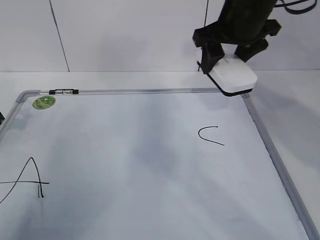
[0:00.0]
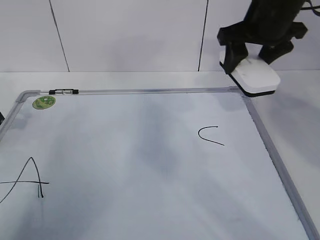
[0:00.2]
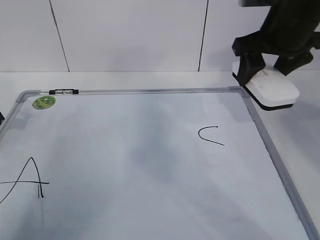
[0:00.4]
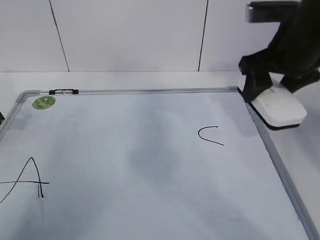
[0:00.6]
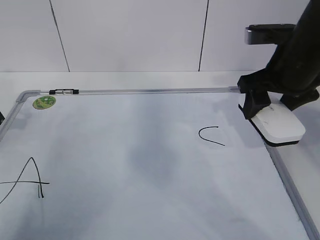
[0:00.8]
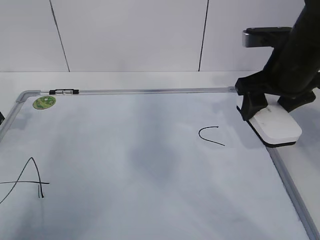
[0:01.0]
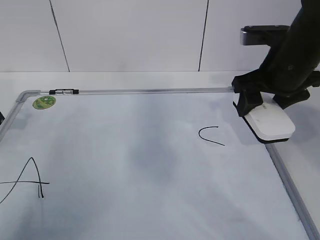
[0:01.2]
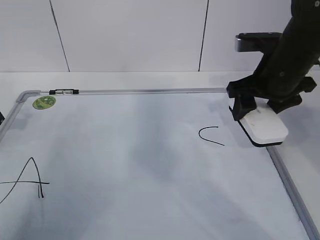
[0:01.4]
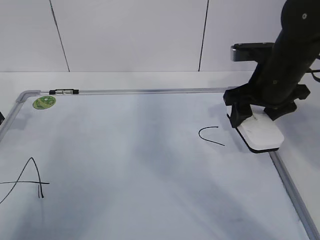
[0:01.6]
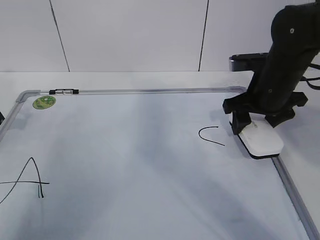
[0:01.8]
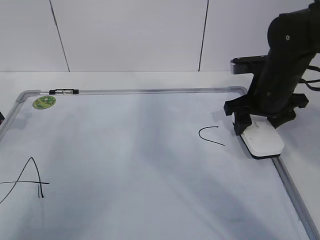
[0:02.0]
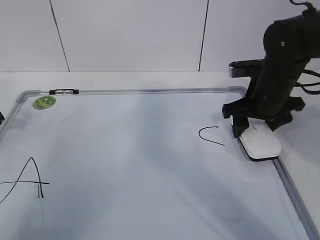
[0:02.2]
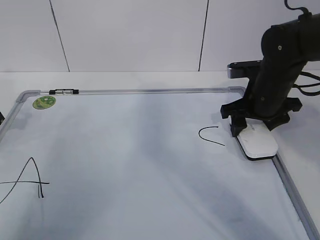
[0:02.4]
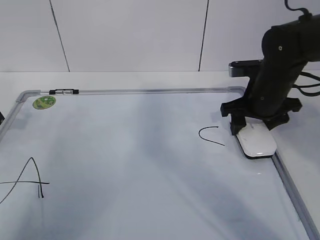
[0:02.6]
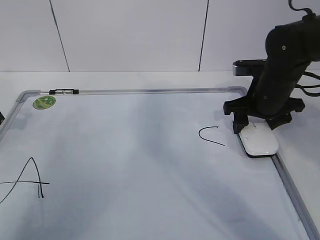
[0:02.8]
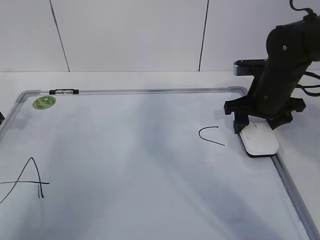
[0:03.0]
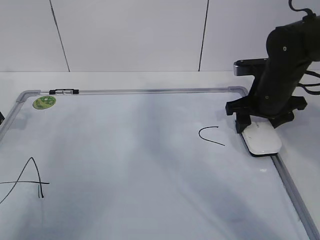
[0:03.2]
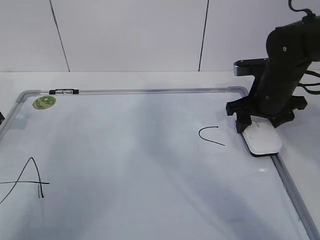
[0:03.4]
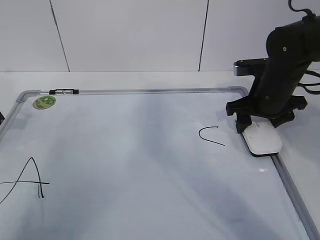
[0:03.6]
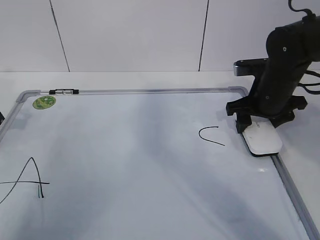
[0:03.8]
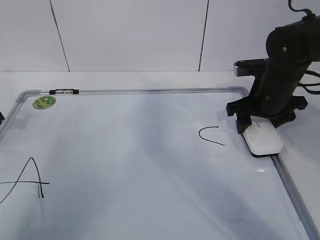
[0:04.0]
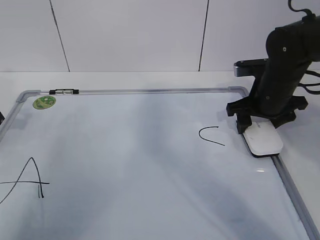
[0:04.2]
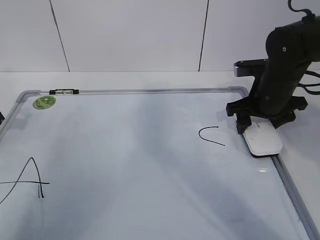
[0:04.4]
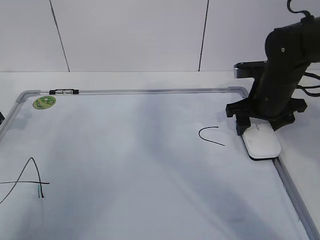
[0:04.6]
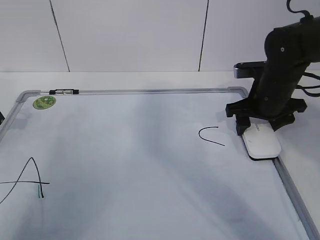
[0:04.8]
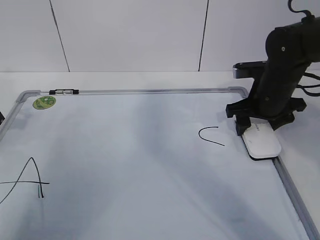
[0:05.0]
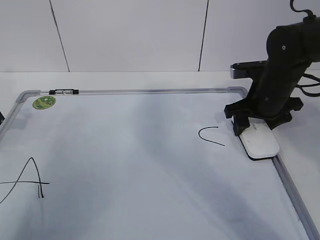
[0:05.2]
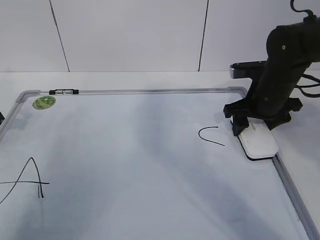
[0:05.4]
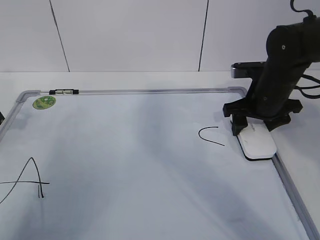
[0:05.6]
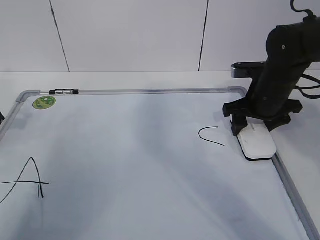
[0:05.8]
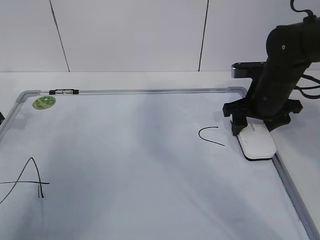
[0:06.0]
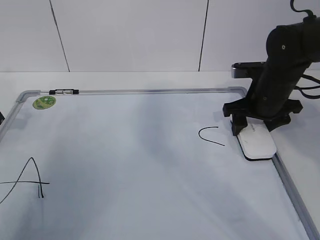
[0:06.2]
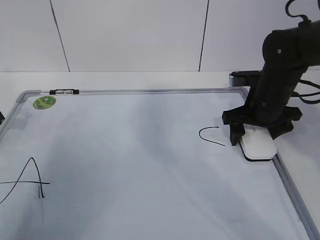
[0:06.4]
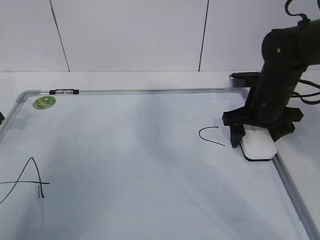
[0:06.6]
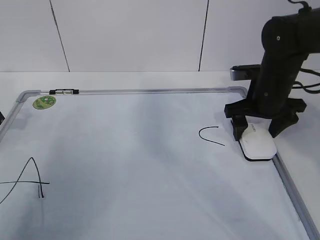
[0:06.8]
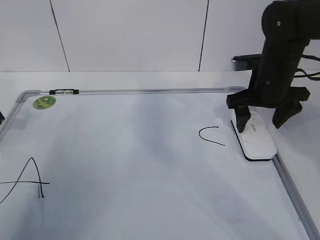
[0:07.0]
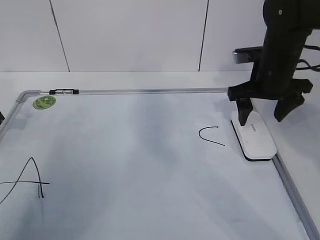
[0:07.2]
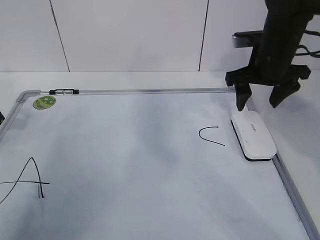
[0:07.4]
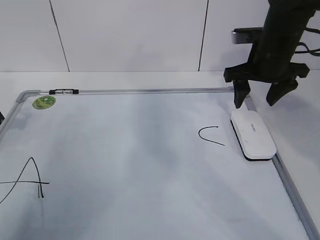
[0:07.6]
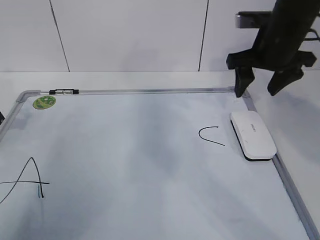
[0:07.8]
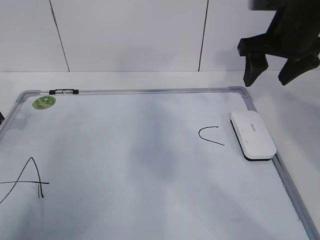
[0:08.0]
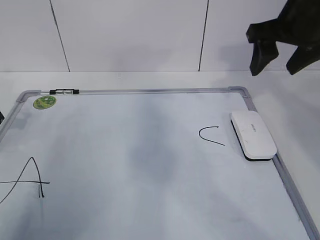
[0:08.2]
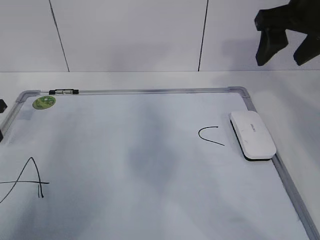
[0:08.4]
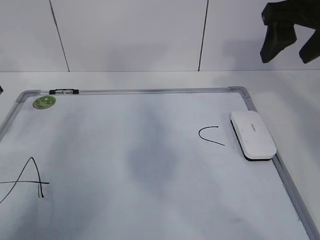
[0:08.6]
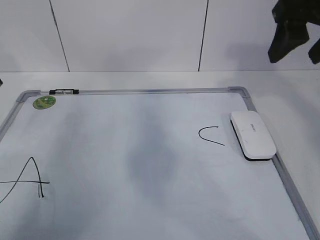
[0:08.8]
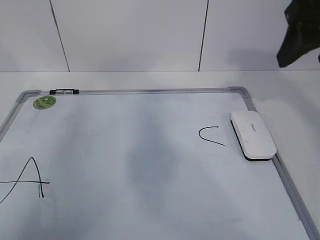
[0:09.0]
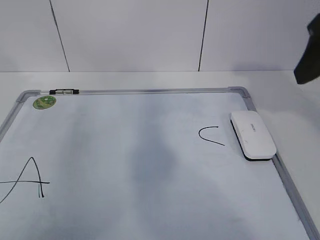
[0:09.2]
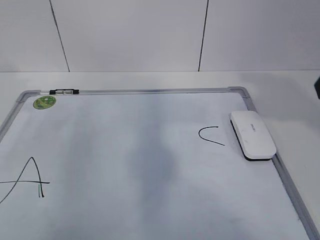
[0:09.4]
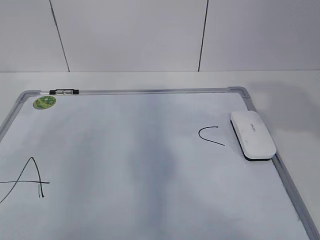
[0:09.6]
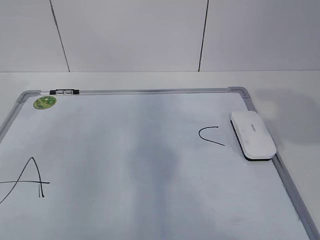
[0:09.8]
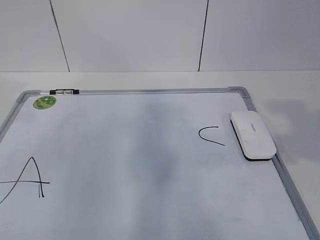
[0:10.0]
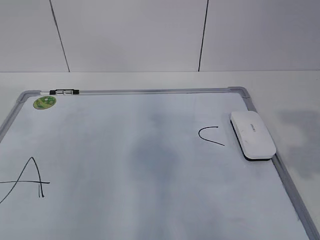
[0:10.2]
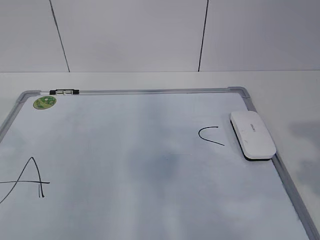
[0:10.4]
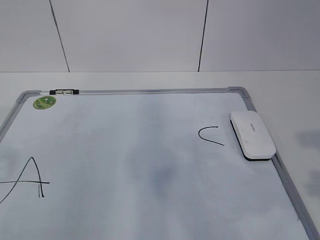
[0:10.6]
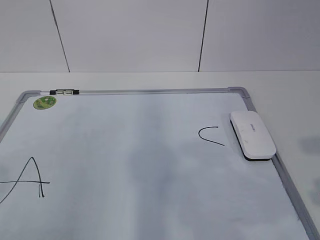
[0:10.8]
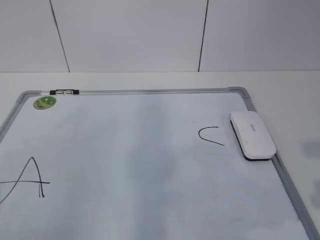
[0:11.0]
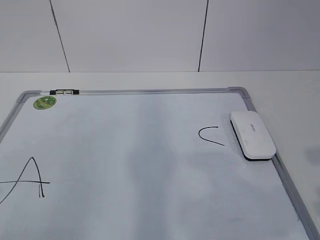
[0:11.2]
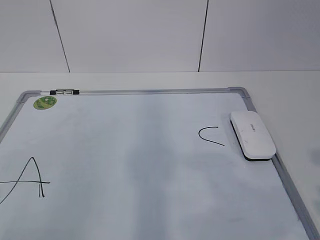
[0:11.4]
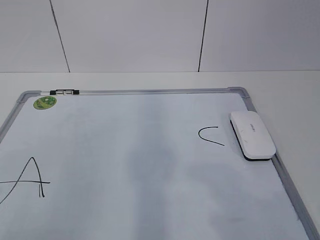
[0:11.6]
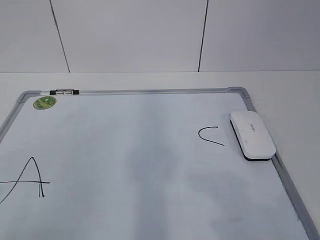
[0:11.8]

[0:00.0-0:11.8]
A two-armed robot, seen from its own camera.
Task of the whole recording: pick up the eraser on the blackboard and erase the letter "B".
0:00.0 to 0:01.4: The right gripper goes roughly 10 cm downward and to the right.
0:01.4 to 0:03.0: The right gripper travels downward by about 5 cm.
0:03.0 to 0:04.4: Both grippers stay about where they are.
0:04.4 to 0:06.0: The grippers move only a little.
0:06.0 to 0:07.4: The right gripper moves upward, about 5 cm, and opens its fingers.
0:07.4 to 0:08.8: The right gripper shifts roughly 15 cm upward and backward, while the left gripper is displaced upward by about 5 cm, and opens its fingers.
0:08.8 to 0:10.4: The right gripper moves backward, some 20 cm, while the left gripper shifts approximately 25 cm backward and upward.

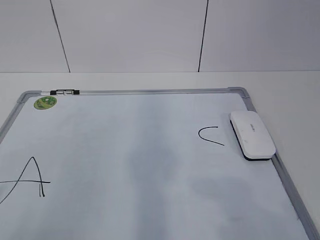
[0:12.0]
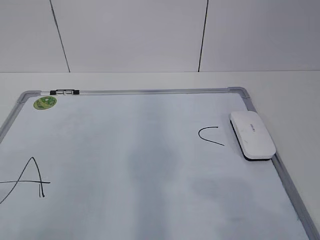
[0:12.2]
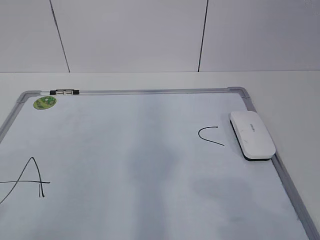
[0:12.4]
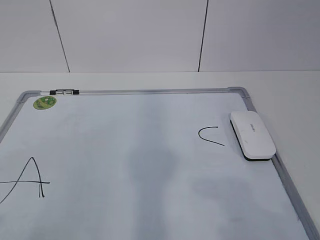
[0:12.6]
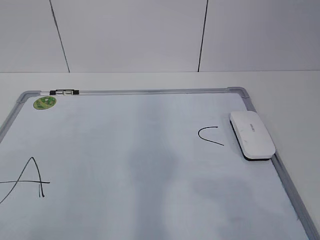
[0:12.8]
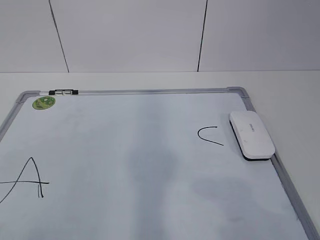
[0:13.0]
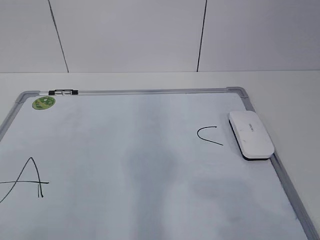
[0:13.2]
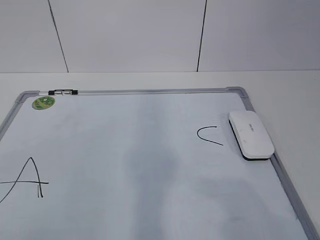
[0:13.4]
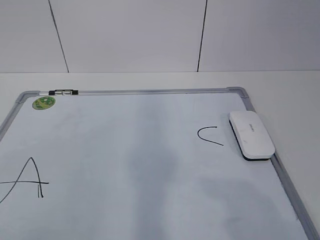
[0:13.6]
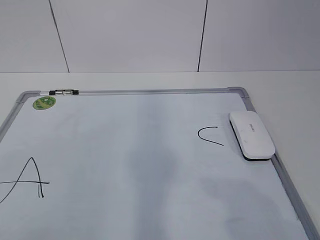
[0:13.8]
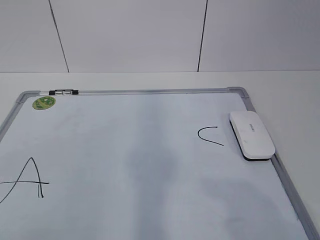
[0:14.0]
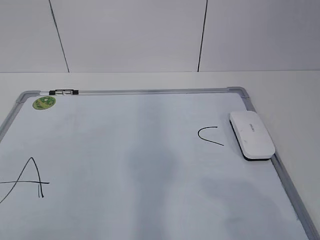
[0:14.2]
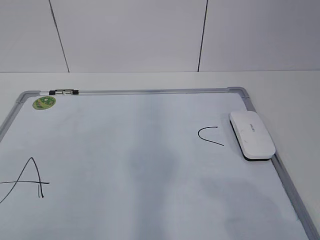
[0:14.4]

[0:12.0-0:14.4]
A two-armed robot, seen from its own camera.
Task of the whole recording: pick up the eraser on the blackboard and erase the letter "B".
0:12.0 to 0:13.2: There are only small adjustments of the grippers.

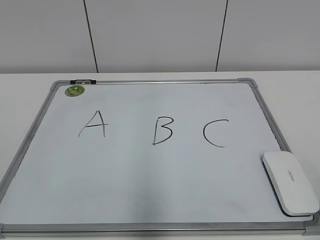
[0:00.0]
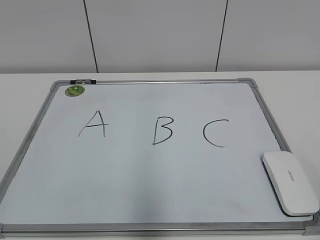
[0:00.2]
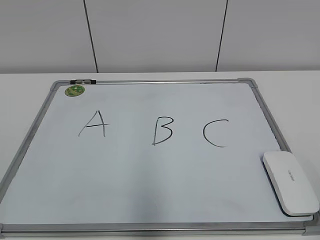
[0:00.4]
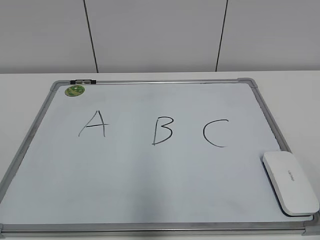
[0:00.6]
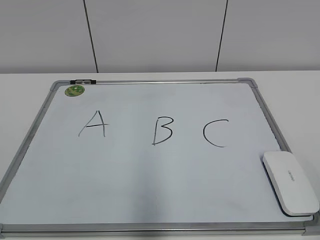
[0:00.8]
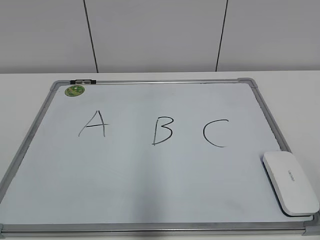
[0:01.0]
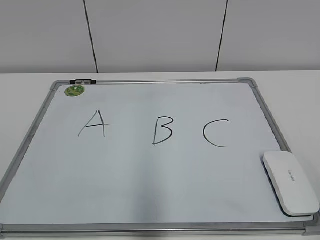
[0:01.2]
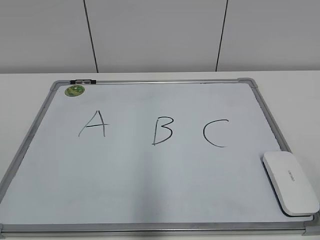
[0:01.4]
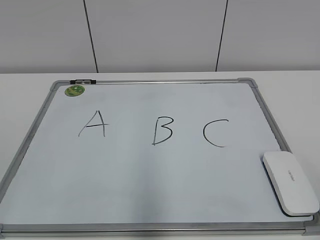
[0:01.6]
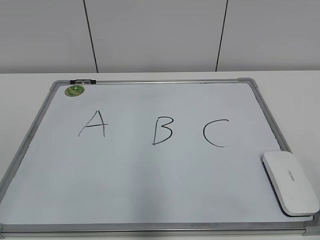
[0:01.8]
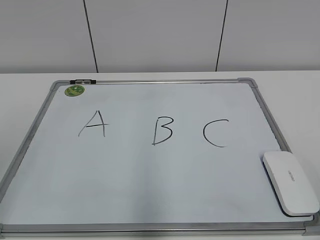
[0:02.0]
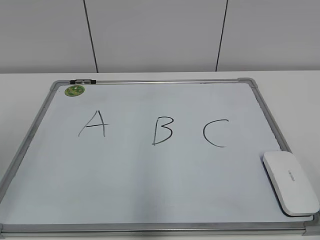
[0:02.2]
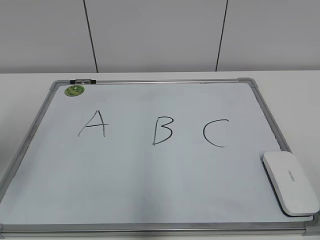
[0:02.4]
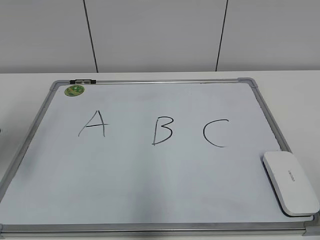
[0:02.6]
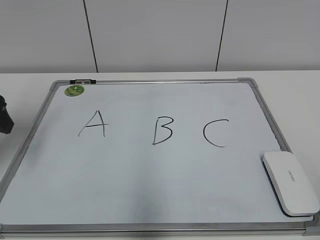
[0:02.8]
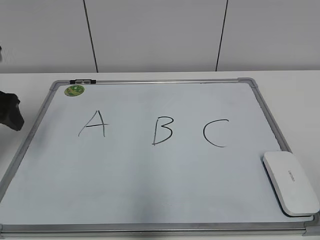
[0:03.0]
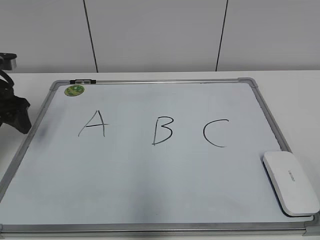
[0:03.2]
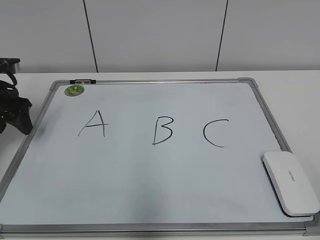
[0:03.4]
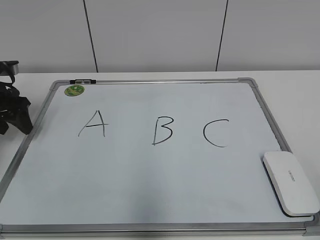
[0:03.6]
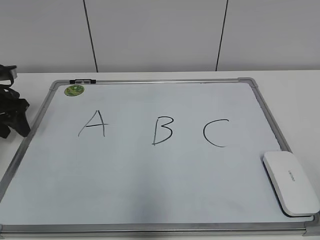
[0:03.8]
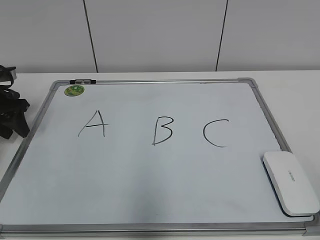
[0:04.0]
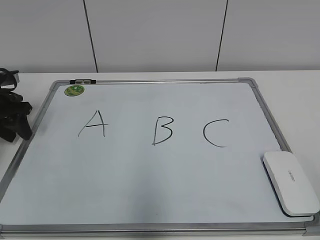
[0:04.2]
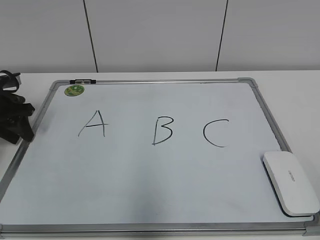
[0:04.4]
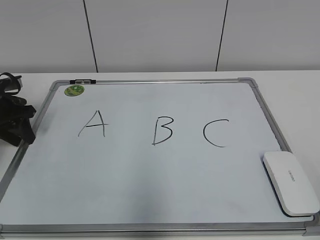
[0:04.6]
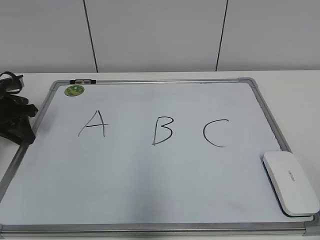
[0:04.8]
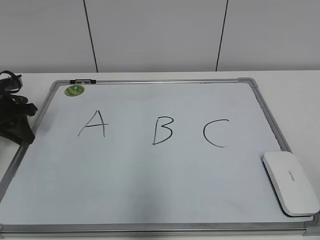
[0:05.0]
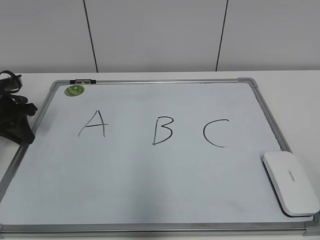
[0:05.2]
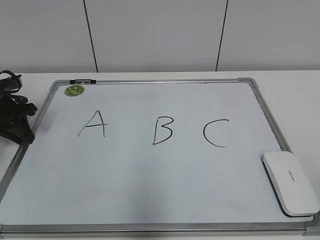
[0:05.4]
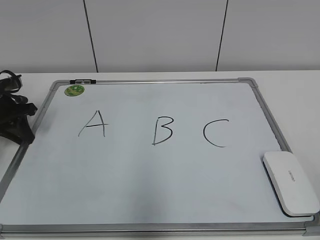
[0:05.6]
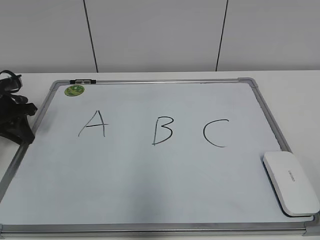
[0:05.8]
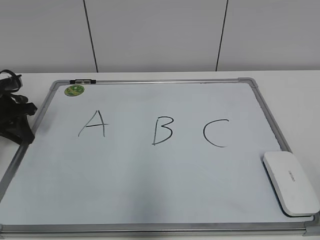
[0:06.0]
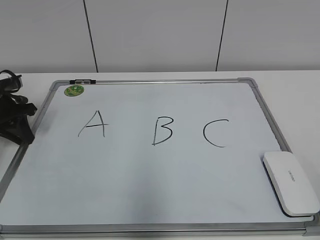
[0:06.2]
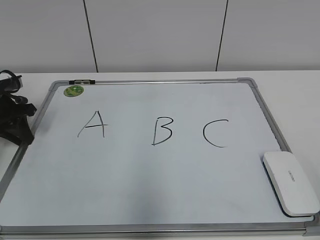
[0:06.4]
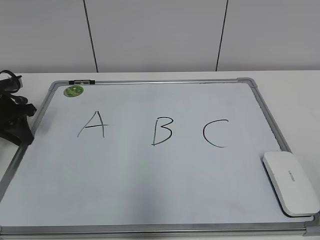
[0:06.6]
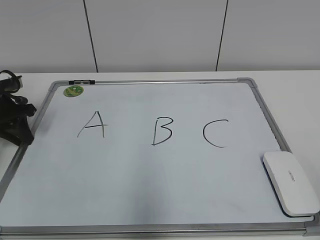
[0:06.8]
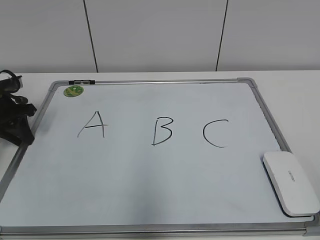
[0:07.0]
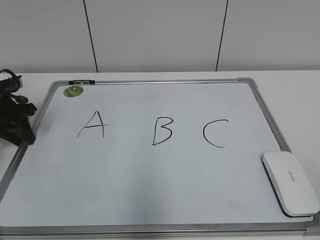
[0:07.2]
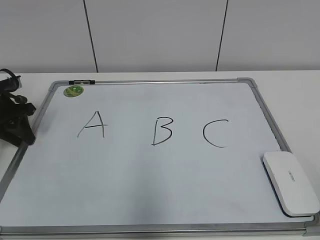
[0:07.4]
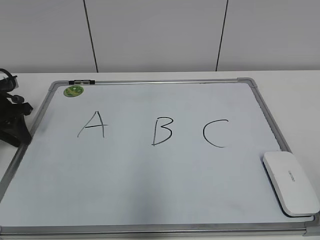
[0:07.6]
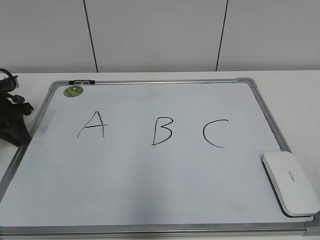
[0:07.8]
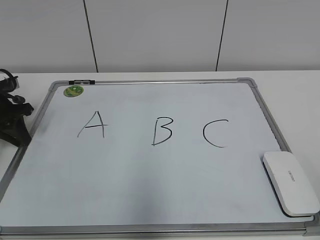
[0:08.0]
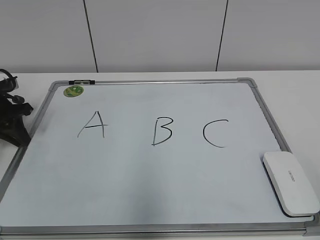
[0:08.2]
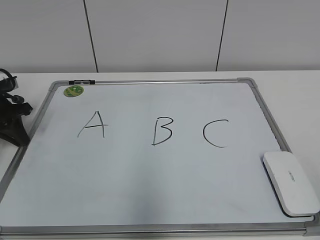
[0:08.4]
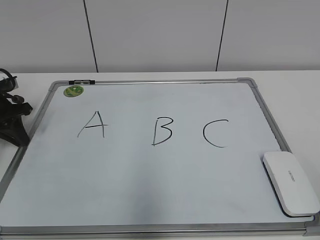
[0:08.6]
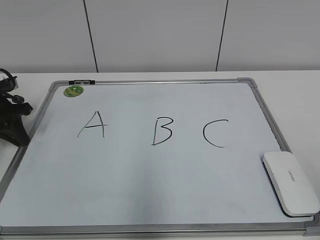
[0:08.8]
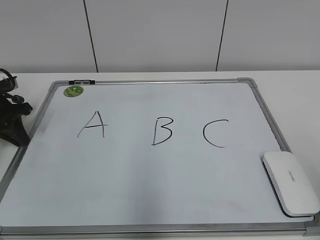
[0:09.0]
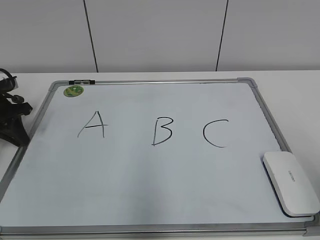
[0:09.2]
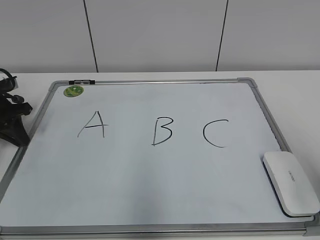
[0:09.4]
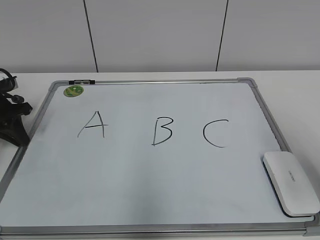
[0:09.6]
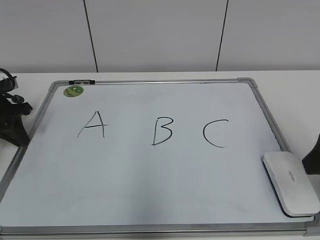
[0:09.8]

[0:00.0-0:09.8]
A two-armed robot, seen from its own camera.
Task of the whole recording: pick up the eraser on the blackboard and erase the letter "B".
Step, 0:00.0 to 0:04.8: Hold the drawing board steady with your left hand.
0:01.4 to 0:02.8: The left gripper goes some 30 cm forward.
0:02.8 to 0:04.2: The left gripper shifts approximately 15 cm forward and downward, and closes up.
0:04.2 to 0:05.6: The left gripper closes its fingers.
0:05.6 to 0:08.4: Both grippers stay about where they are.
0:08.4 to 0:09.8: The right gripper is displaced forward by approximately 20 cm.
